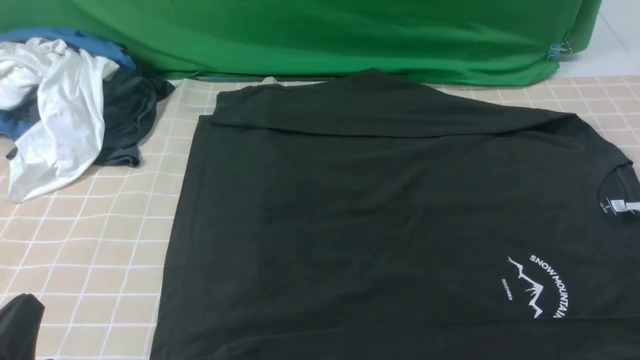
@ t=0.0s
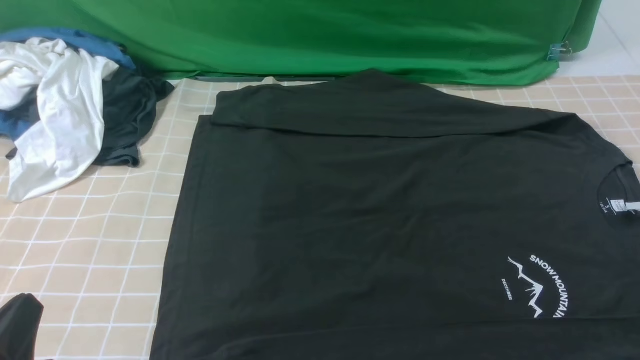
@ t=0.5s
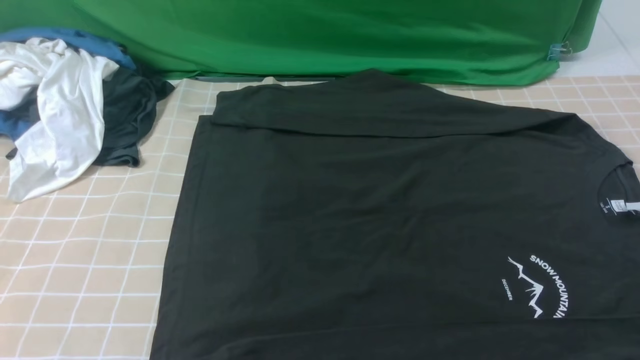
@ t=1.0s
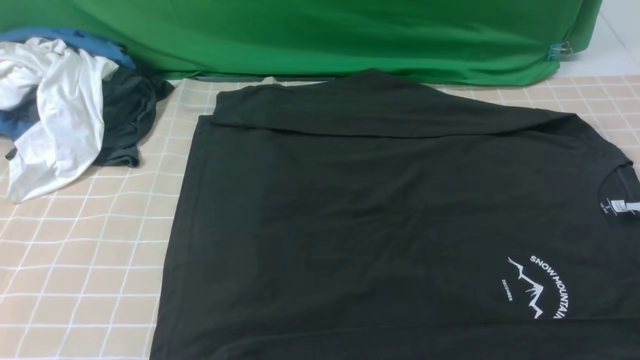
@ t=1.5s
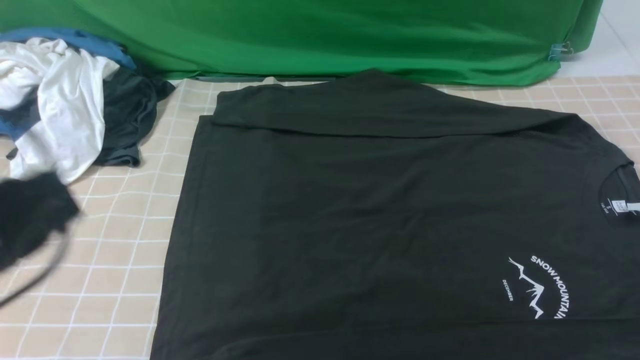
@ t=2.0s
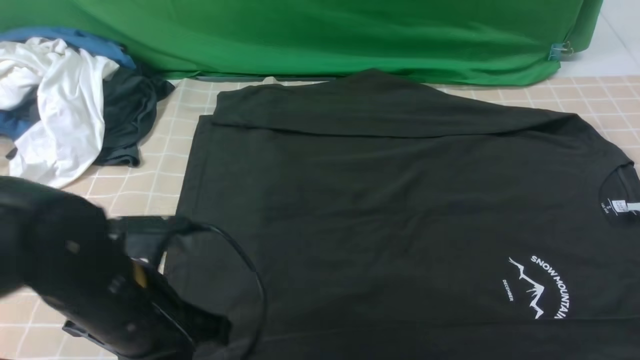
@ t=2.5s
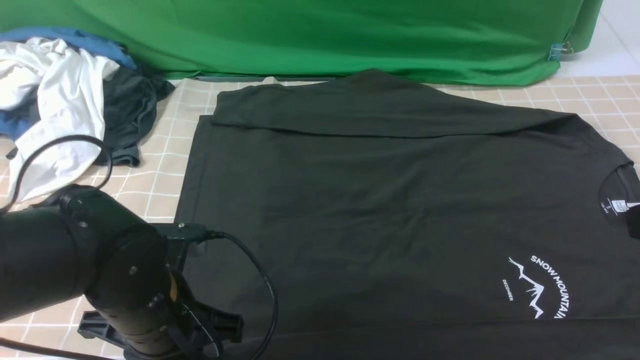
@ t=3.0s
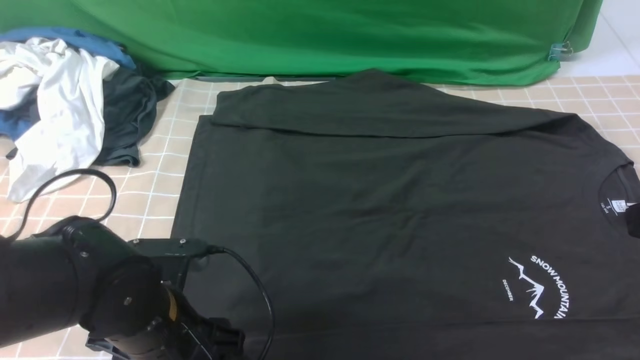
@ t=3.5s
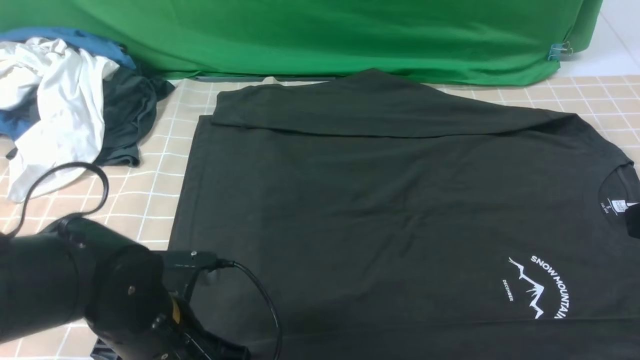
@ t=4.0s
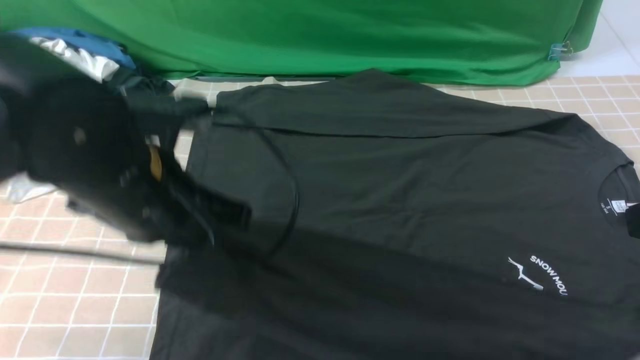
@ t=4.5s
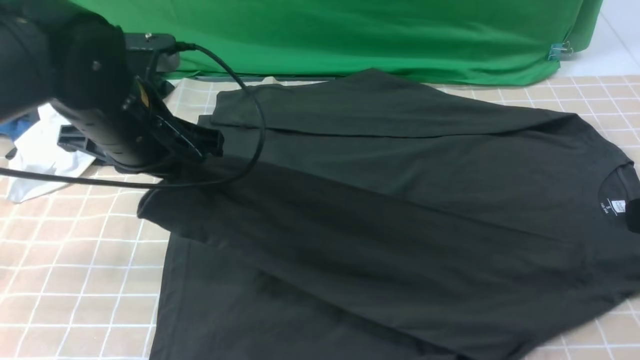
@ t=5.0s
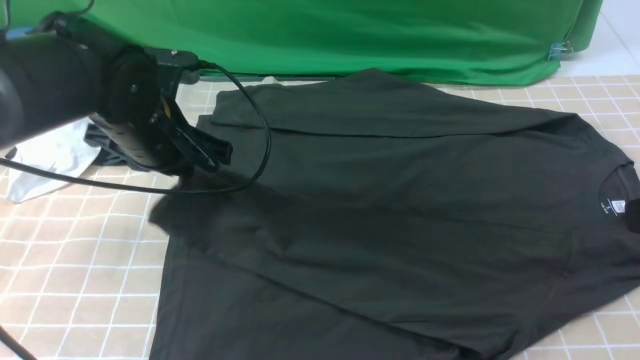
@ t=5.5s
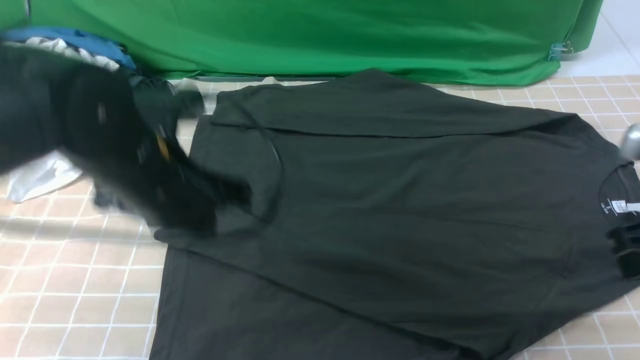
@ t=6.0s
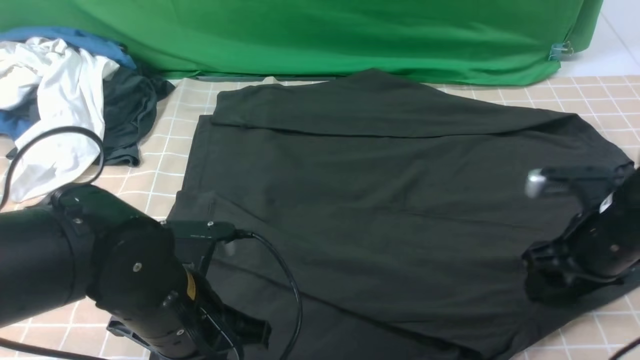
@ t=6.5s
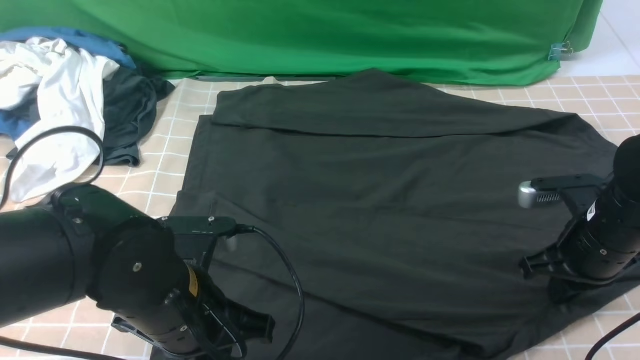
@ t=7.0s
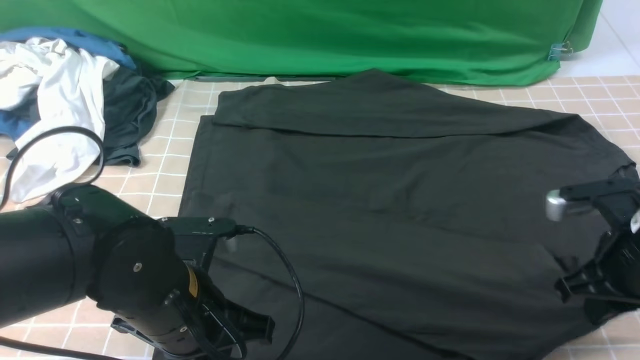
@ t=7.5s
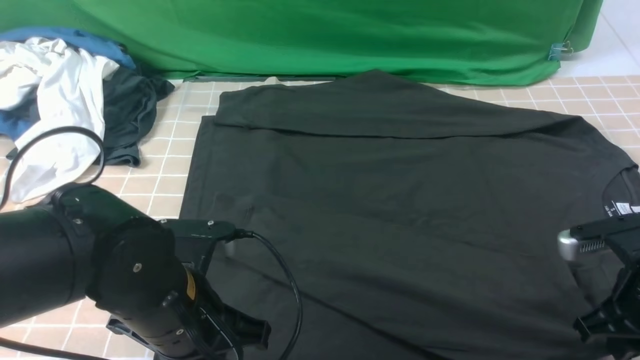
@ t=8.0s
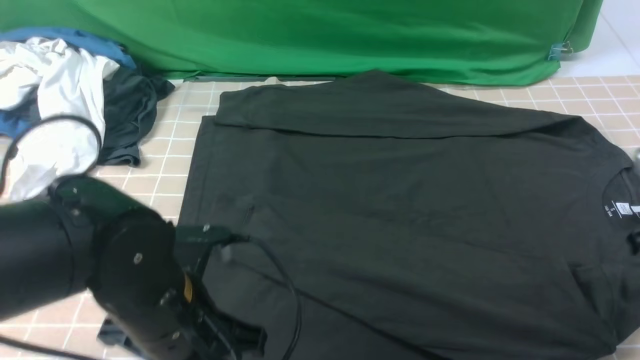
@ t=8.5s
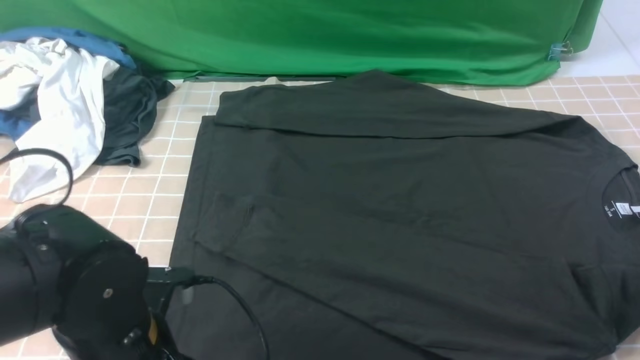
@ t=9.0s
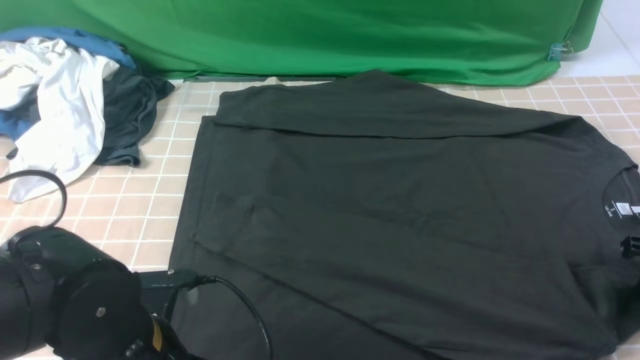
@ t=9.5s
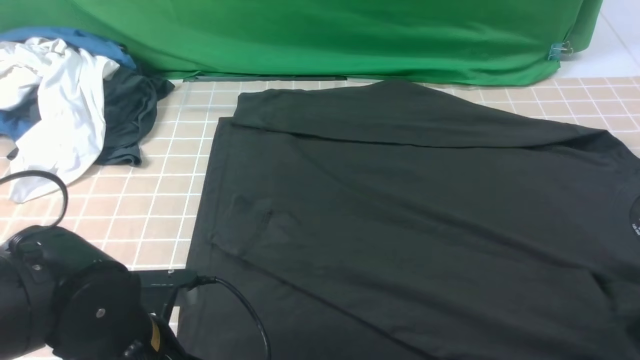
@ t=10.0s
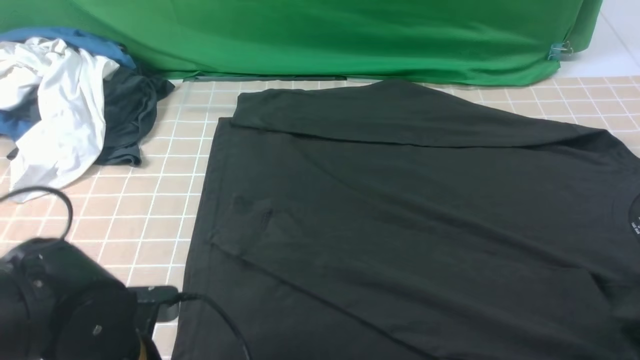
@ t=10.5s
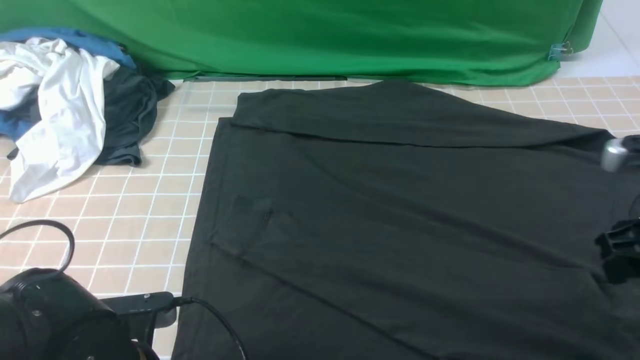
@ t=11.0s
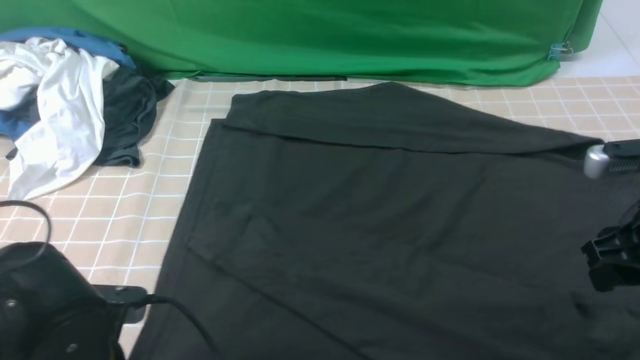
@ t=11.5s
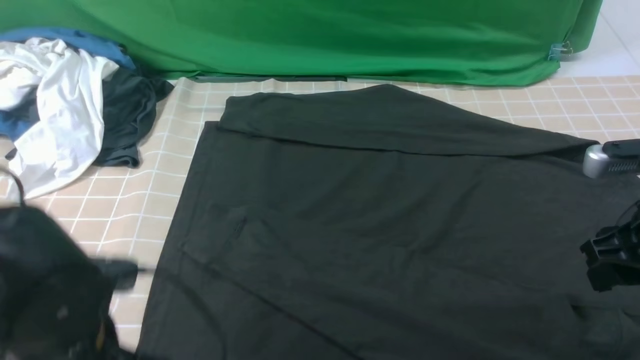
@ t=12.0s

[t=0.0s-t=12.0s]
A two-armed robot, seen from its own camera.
Step, t=0.0s to t=3.5s: use the left arm to clamp the cuff closest to it.
Step, t=4.0s to t=5.5s: use the left arm to drag and place the cuff at the centered position on the left edge of the fabric.
t=0.0s to t=2.0s: The left gripper shifts some 15 cm upward and forward.
t=2.0s to t=4.0s: The left gripper goes about 15 cm downward and to the right, and opens, then closes once more; the right gripper travels forward by about 10 cm.
t=4.0s to t=6.0s: The right gripper goes some 10 cm downward and forward. Meanwhile the left gripper goes some 10 cm upward and forward.
t=6.0s to t=8.0s: The right gripper travels downward by approximately 10 cm, and opens, then closes once more; the left gripper shifts roughly 5 cm backward.
t=8.0s to t=10.0s: The right gripper heads to the right, covering roughly 10 cm, and opens, then closes once more.
t=10.0s to t=12.0s: The right gripper moves to the left and upward, approximately 15 cm, and opens its fingers; the left gripper ends up some 5 cm from where it was.

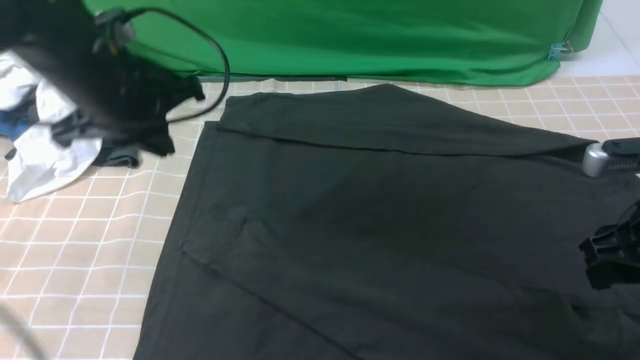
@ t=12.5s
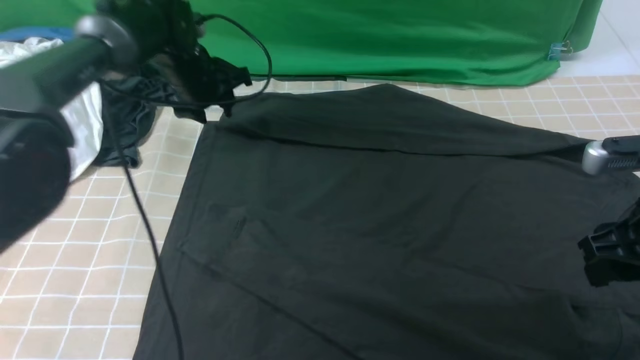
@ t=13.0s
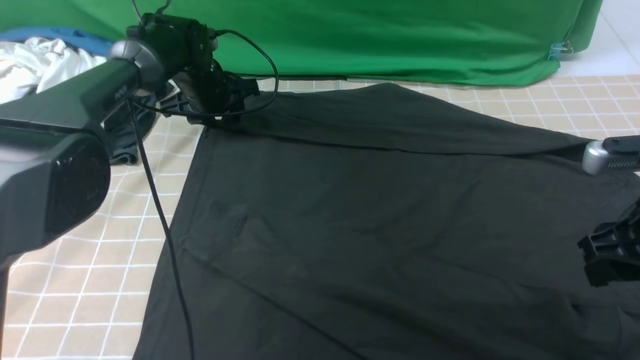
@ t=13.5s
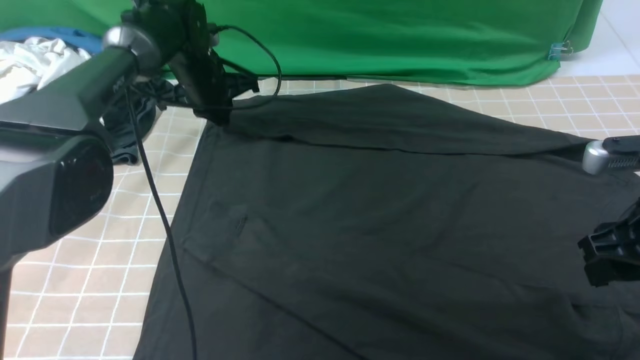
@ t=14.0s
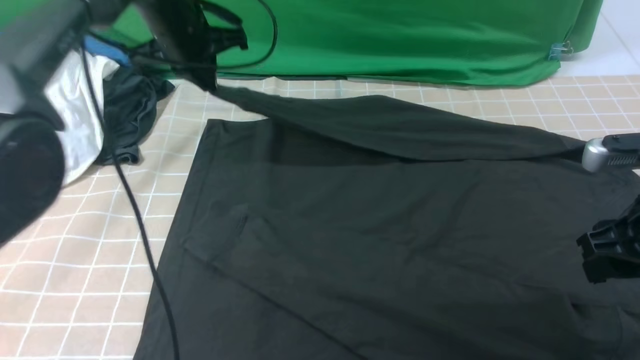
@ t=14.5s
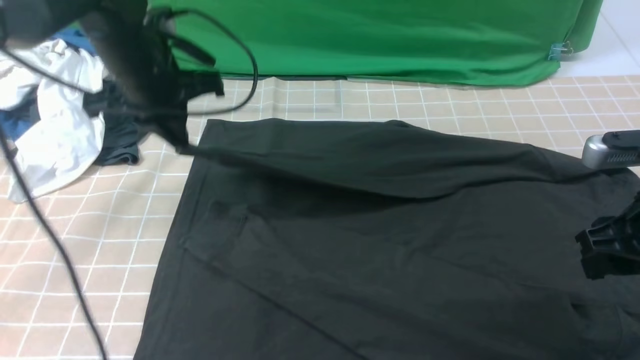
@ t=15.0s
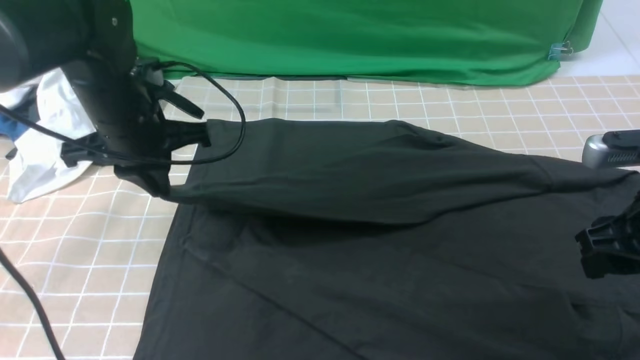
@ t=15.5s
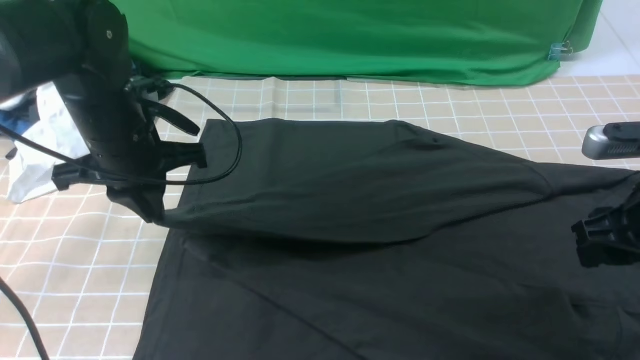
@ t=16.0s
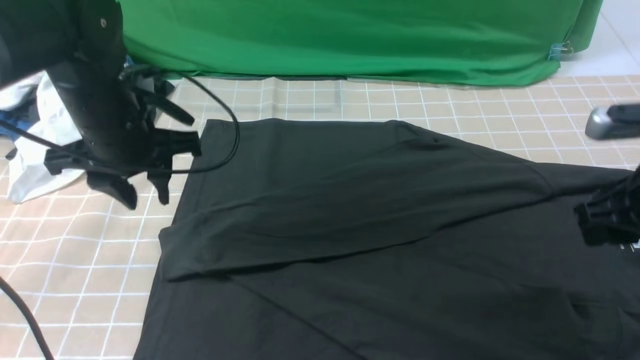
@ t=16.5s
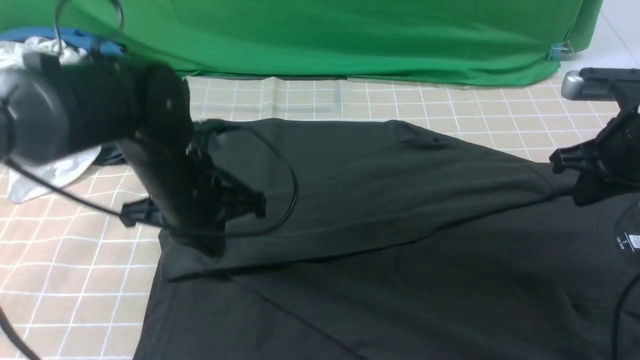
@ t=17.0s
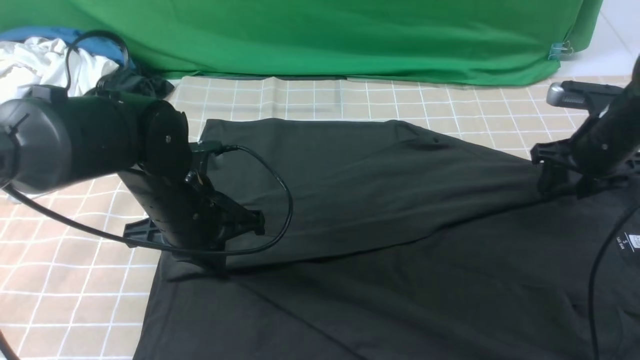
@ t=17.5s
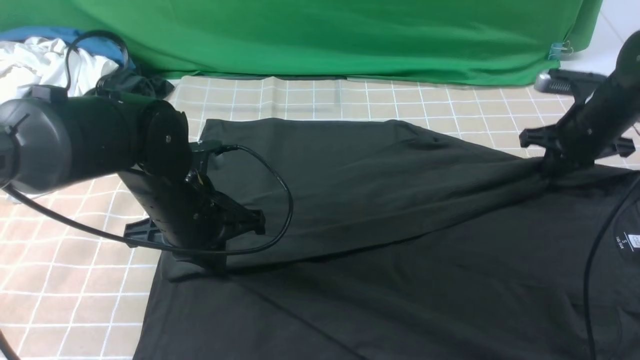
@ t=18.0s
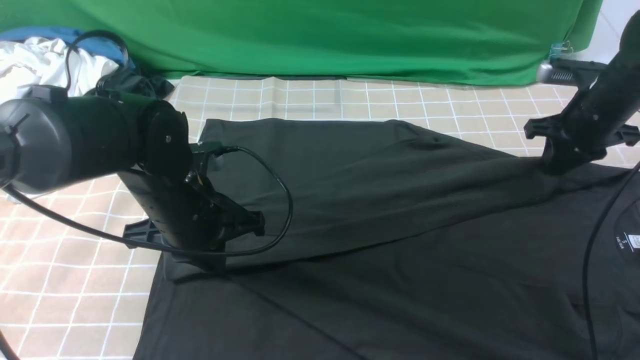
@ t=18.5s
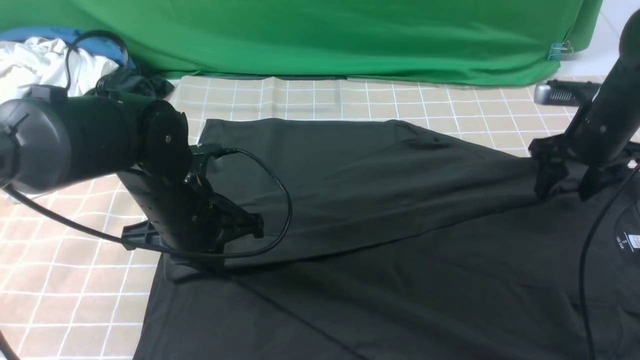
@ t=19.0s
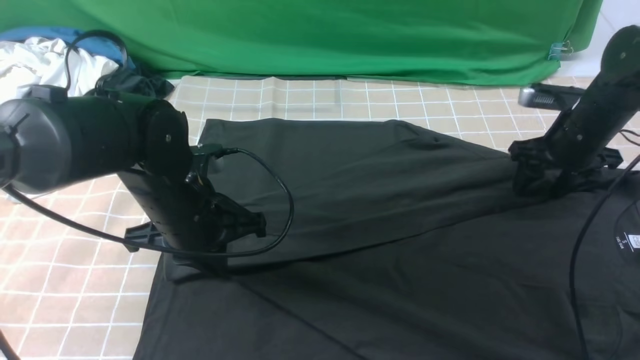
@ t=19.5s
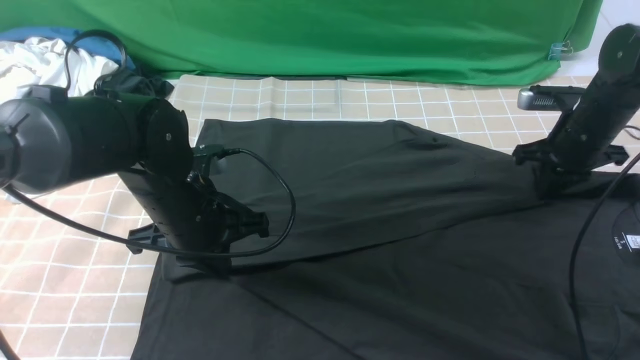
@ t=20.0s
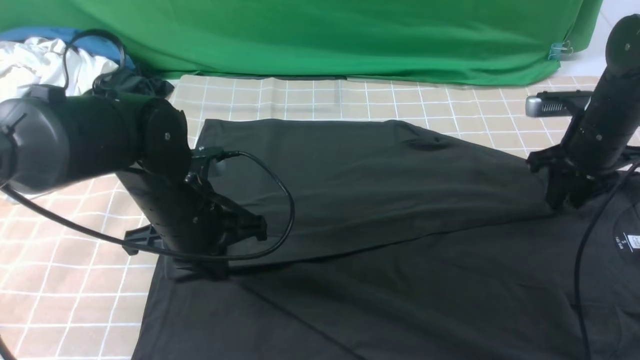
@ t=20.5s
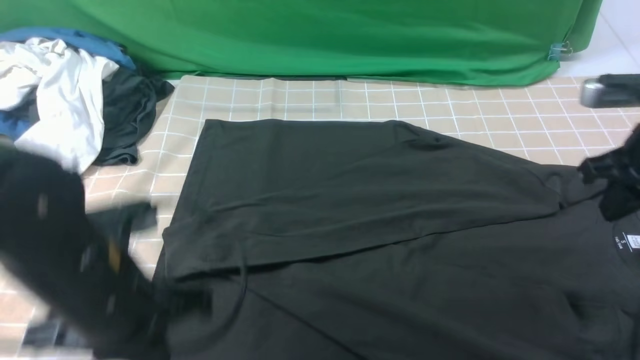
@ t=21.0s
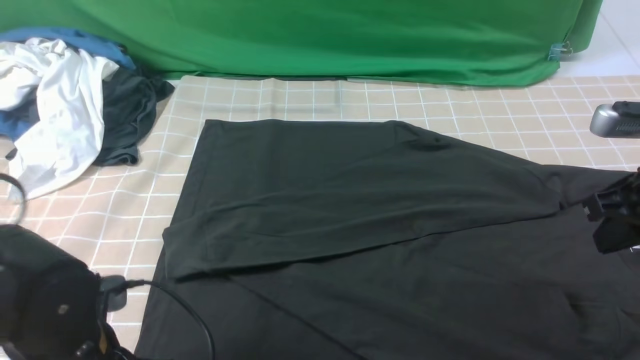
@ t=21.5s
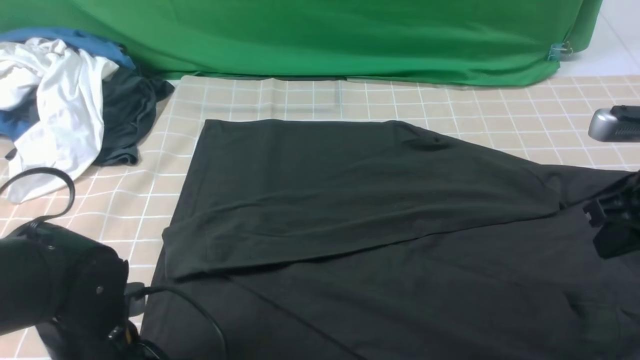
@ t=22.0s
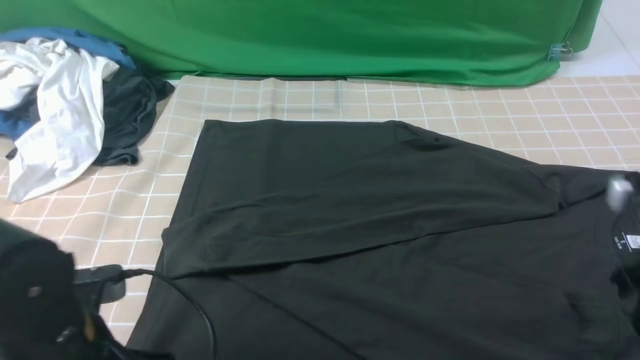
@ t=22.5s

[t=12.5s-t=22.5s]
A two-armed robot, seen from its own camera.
Step, t=14.0s to t=16.0s: use the left arm to drag and drop the cuff onto the cuff closest to the left arm.
t=12.5s to t=14.5s: The left gripper shifts roughly 15 cm forward, and opens, then closes again.
t=14.5s to t=16.5s: The left gripper heads backward, covering roughly 15 cm, and opens its fingers.
t=16.5s to t=18.5s: The right gripper travels forward by about 20 cm, and closes, then opens again; the left gripper shifts about 5 cm downward, and closes.
t=18.5s to t=20.5s: The right gripper opens, then closes again.
t=20.5s to t=22.5s: The two grippers go about 15 cm backward. The right gripper closes, then opens again. The left gripper opens, then closes once more.
